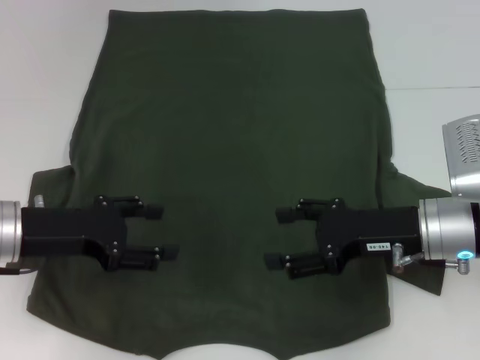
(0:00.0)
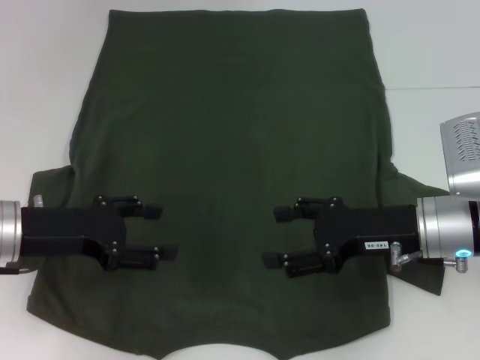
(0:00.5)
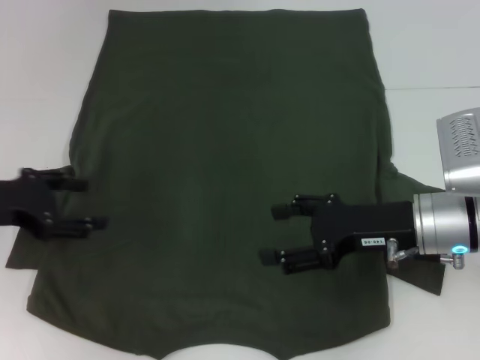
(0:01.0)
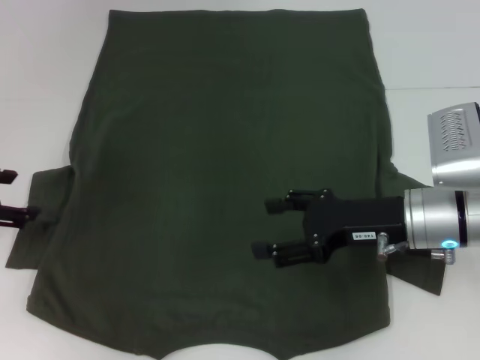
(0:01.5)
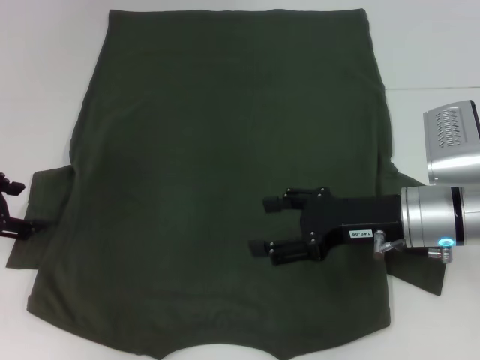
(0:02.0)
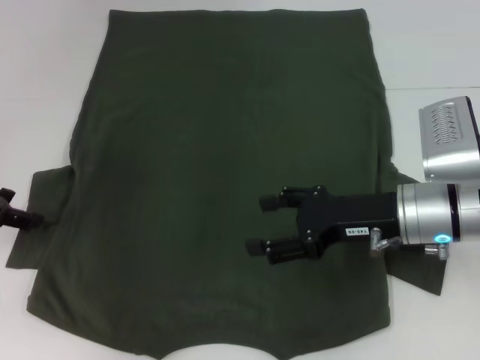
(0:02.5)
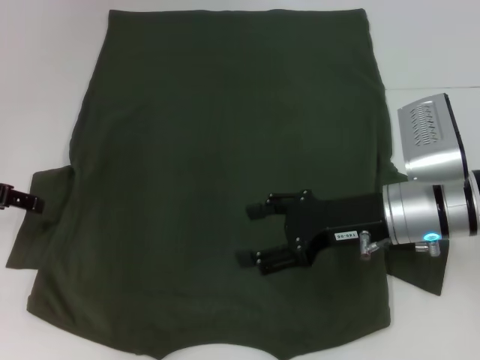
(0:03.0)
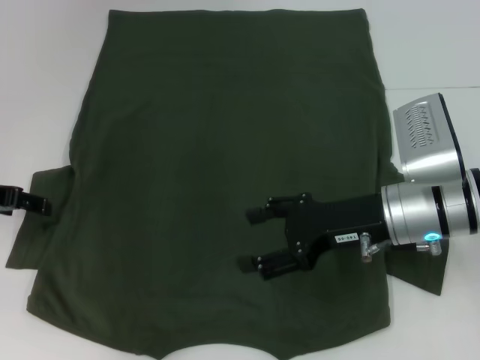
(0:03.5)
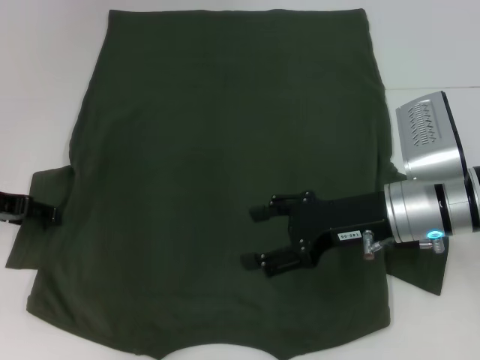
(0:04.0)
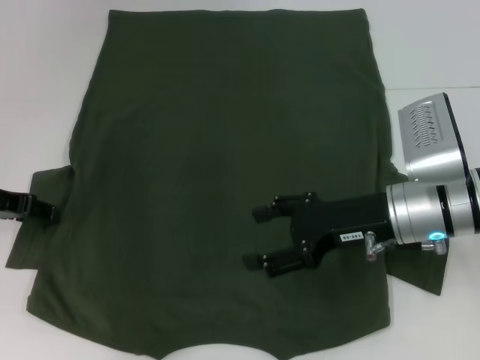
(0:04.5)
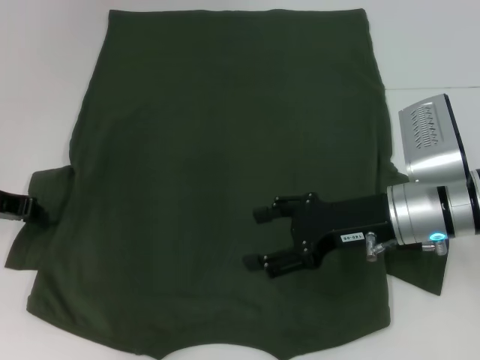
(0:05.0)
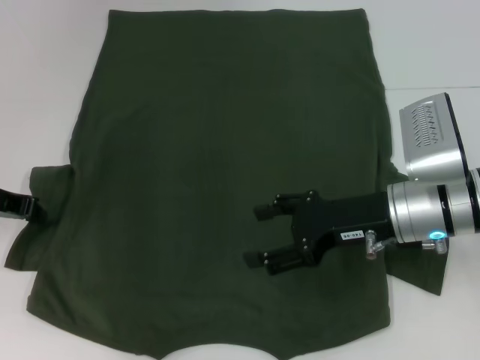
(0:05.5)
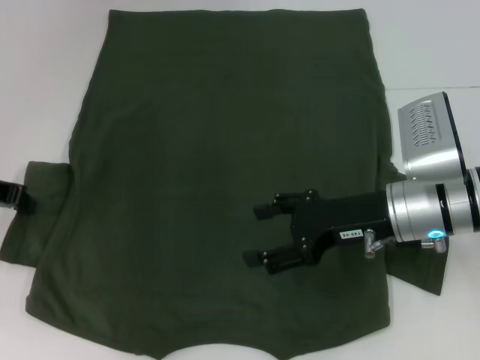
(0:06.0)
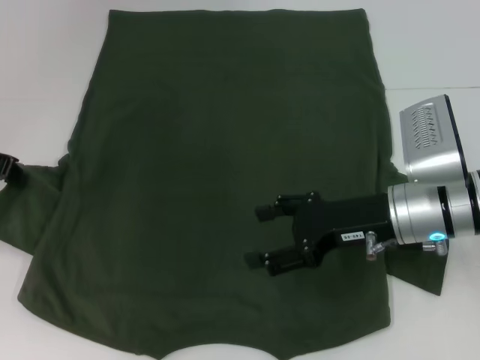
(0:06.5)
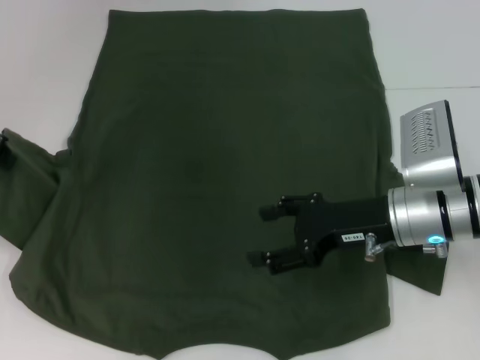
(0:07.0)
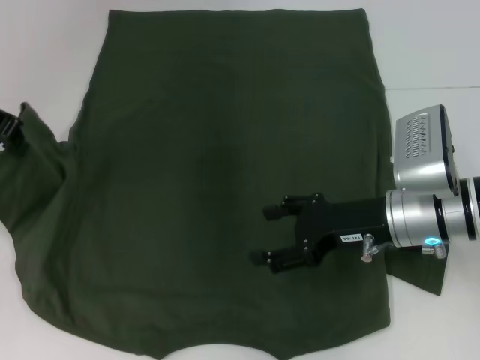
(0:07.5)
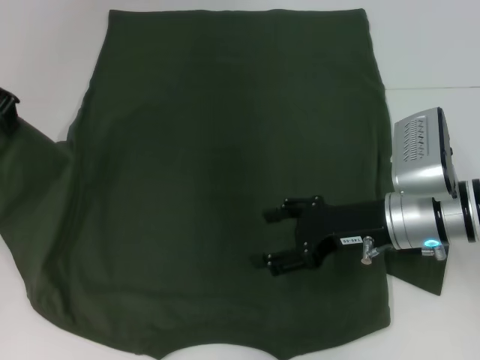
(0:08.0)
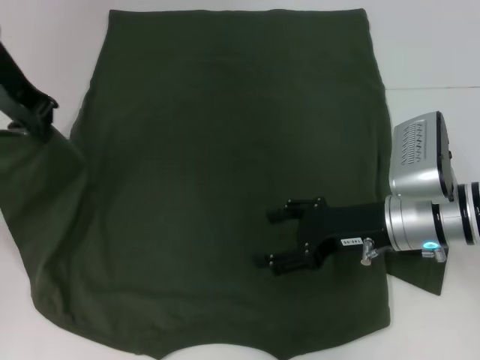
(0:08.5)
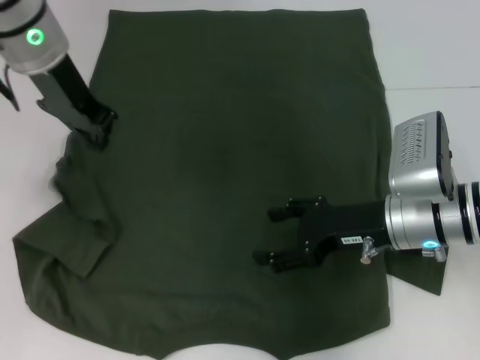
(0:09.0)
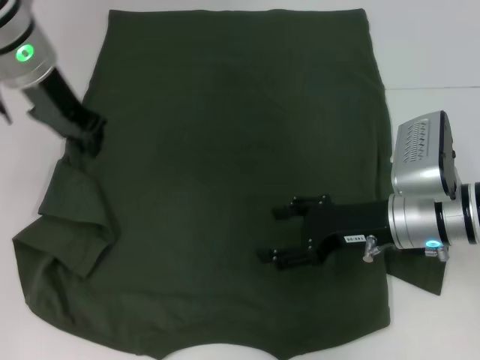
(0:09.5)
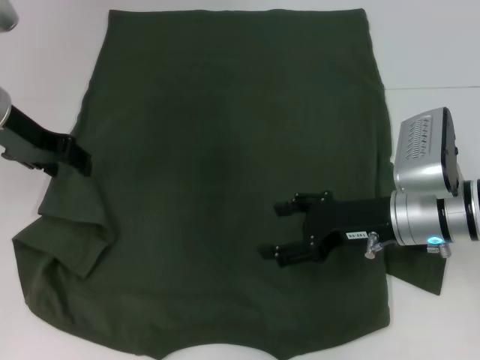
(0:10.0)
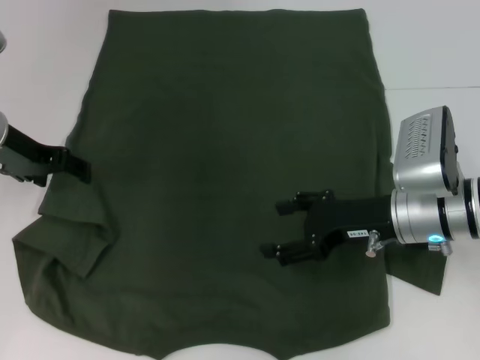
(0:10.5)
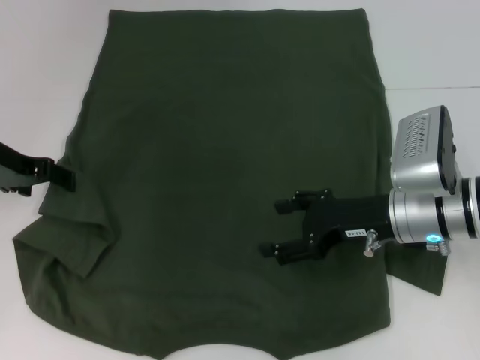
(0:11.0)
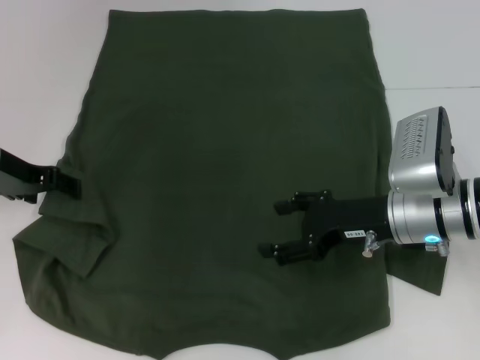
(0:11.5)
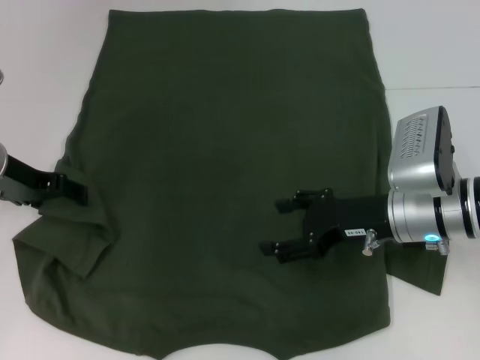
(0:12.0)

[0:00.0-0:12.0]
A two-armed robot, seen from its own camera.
0:00.0 to 0:02.0: The left gripper is displaced to the left by approximately 10 cm.
0:04.0 to 0:06.0: The left gripper closes.
0:06.0 to 0:08.0: The left gripper is displaced upward and to the right by approximately 15 cm.
0:08.0 to 0:10.0: The left gripper is displaced downward by approximately 10 cm, goes to the right and returns, roughly 10 cm each way, and opens.
0:10.0 to 0:12.0: The left gripper goes roughly 5 cm downward, and opens up.

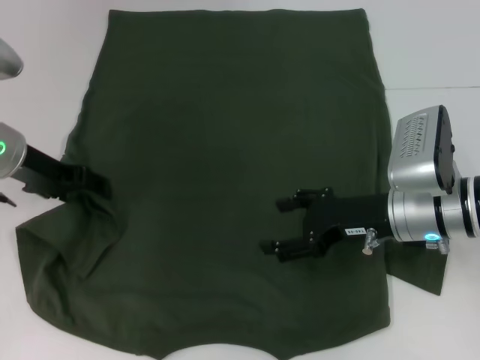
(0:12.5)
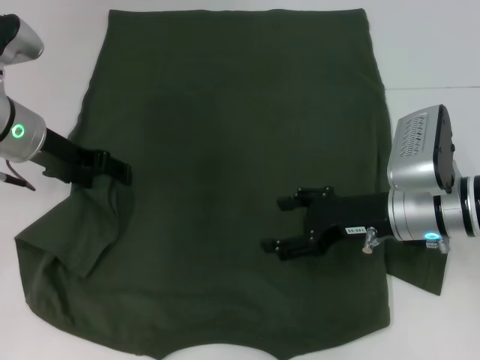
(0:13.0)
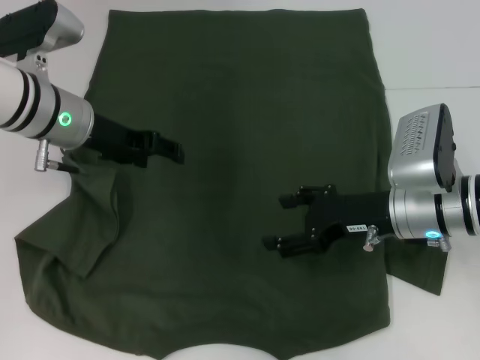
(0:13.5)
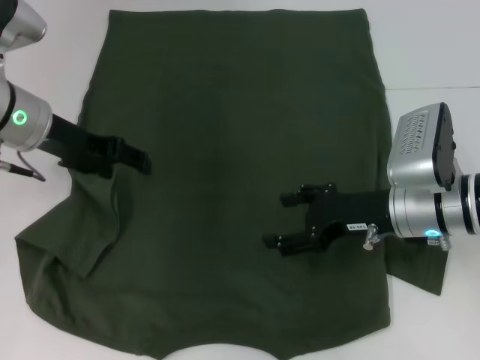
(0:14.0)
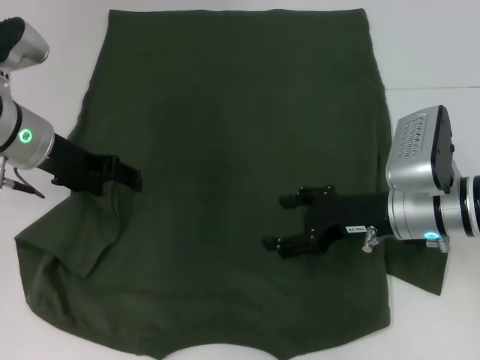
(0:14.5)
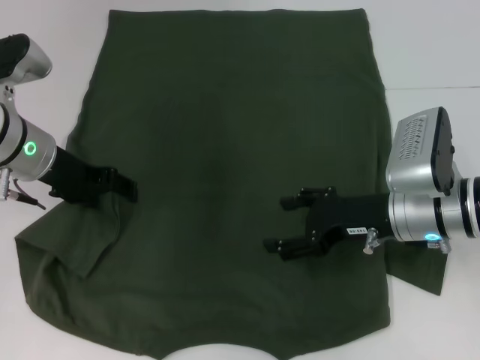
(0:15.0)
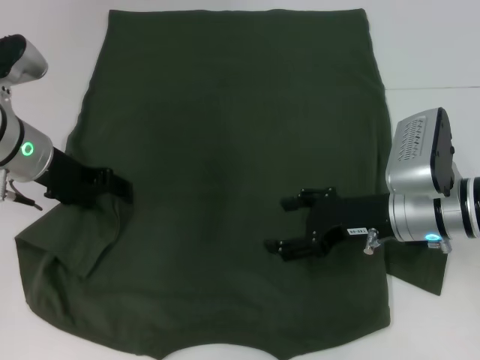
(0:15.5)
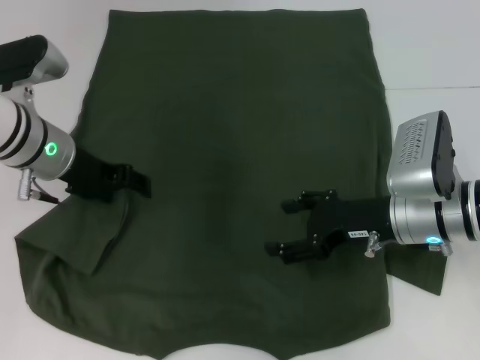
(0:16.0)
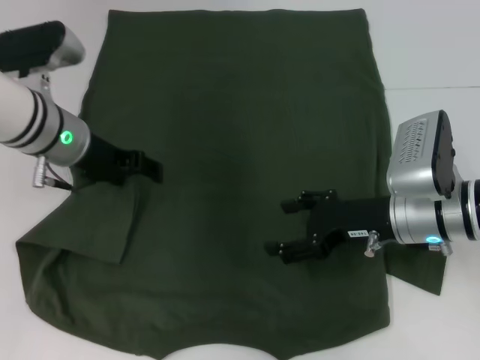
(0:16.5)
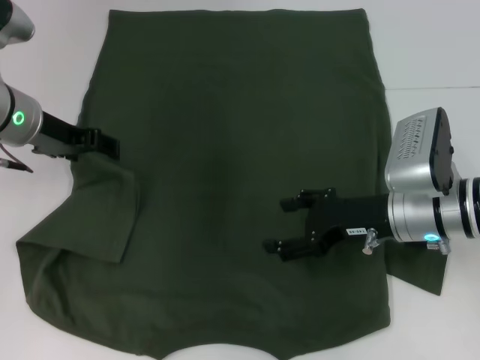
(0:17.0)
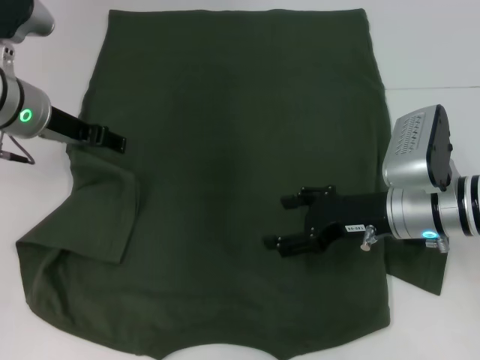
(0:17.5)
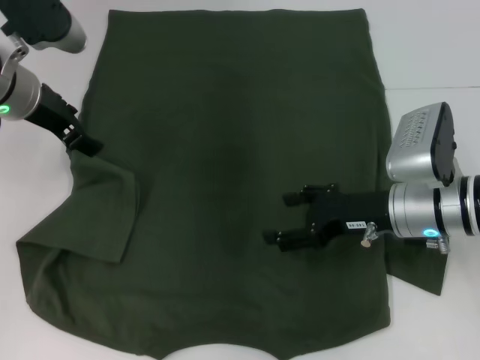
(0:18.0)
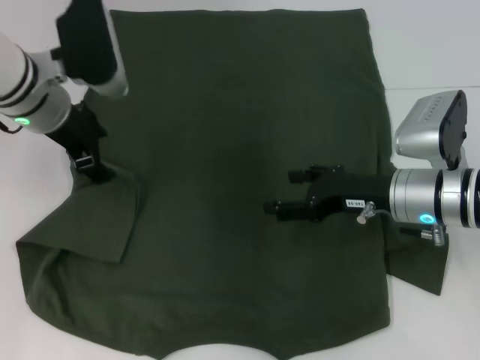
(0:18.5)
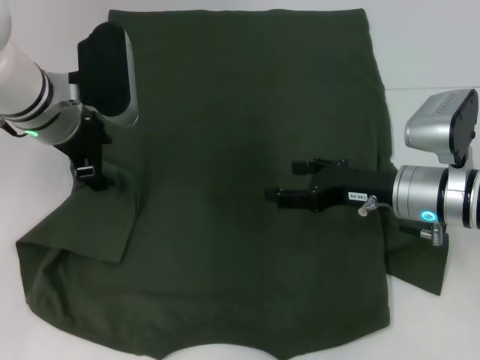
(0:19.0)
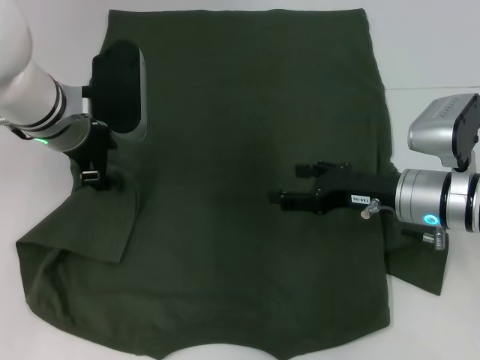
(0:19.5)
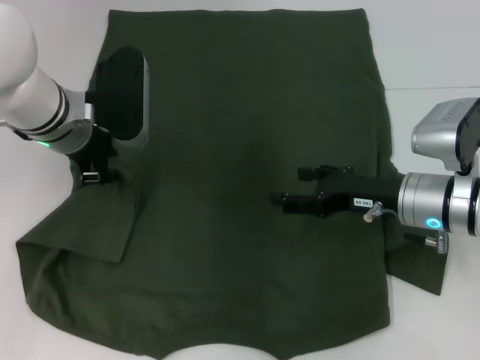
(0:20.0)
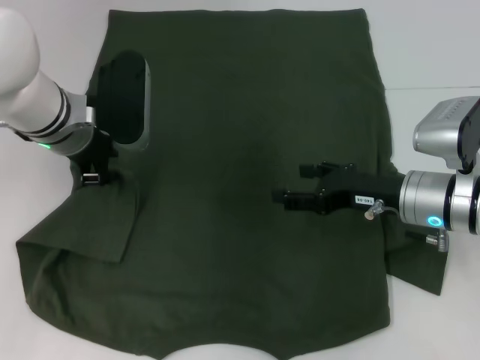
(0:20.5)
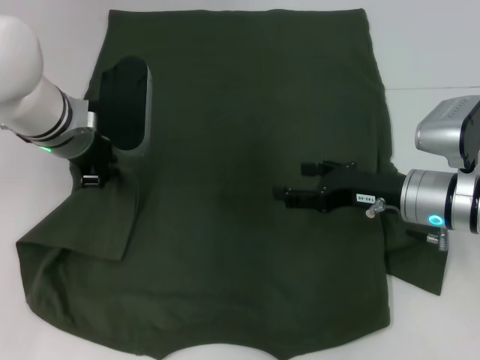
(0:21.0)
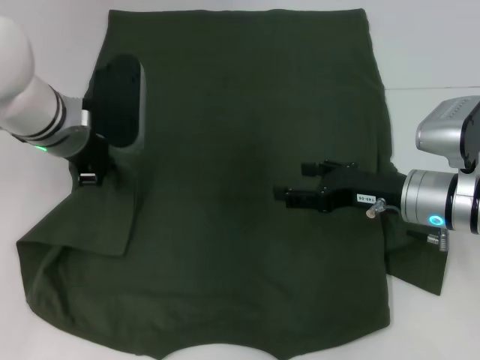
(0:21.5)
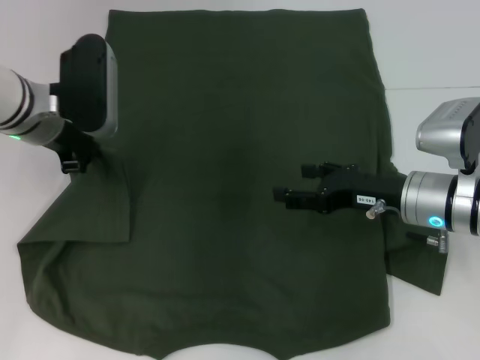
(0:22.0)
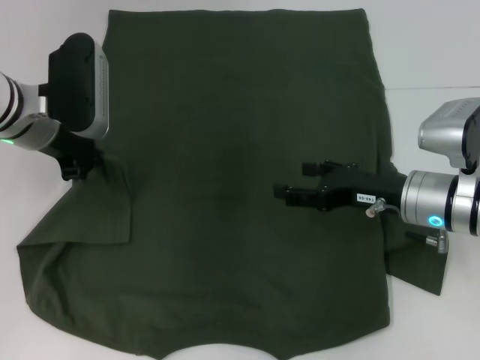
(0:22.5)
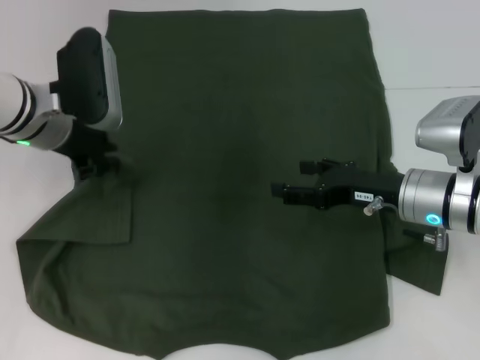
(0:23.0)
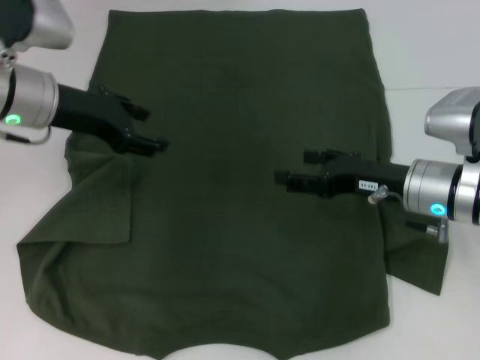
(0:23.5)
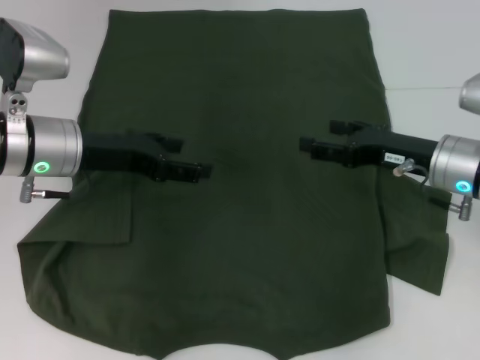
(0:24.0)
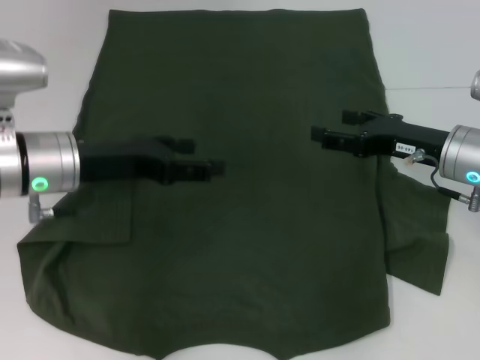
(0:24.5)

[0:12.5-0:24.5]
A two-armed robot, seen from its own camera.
Step, 0:12.5 to 0:23.0: Fold the bottom left sleeve with your left hand.
0:14.5 to 0:16.5: There are only small adjustments of the grippers.
0:18.5 to 0:20.5: The left gripper closes up.
0:20.5 to 0:22.5: The left gripper closes its fingers.
0:22.5 to 0:24.5: The right gripper moves some 5 cm. Meanwhile the left gripper travels backward by about 5 cm, and opens.

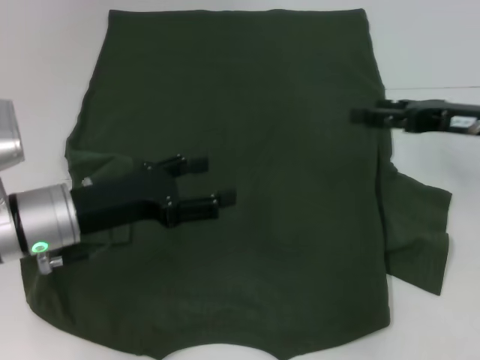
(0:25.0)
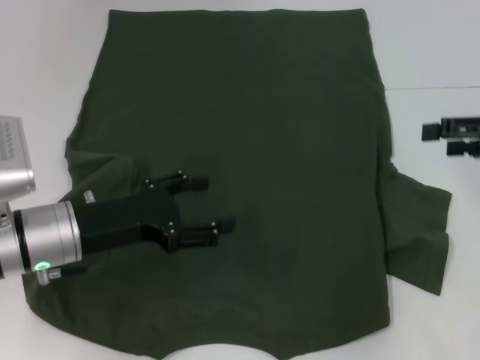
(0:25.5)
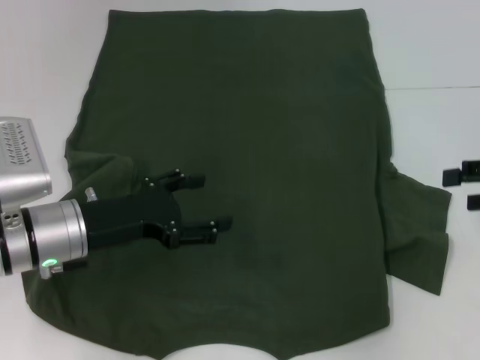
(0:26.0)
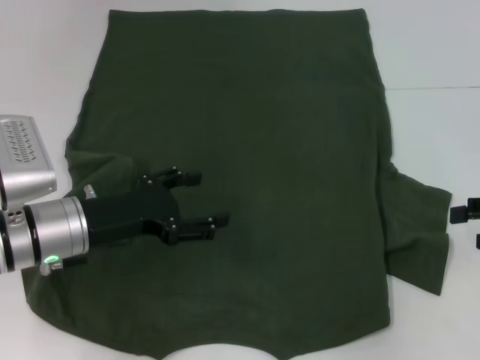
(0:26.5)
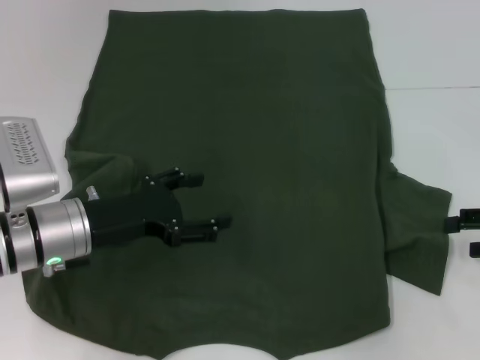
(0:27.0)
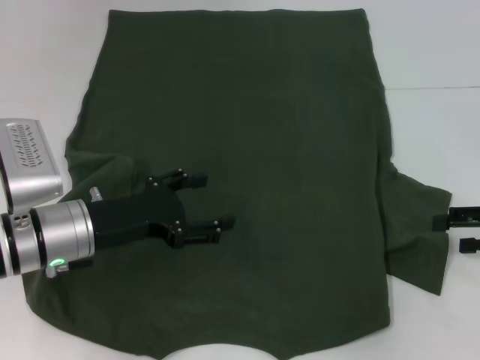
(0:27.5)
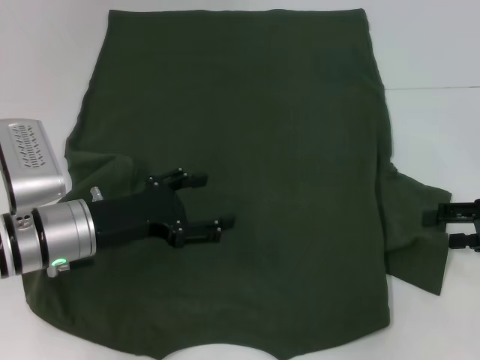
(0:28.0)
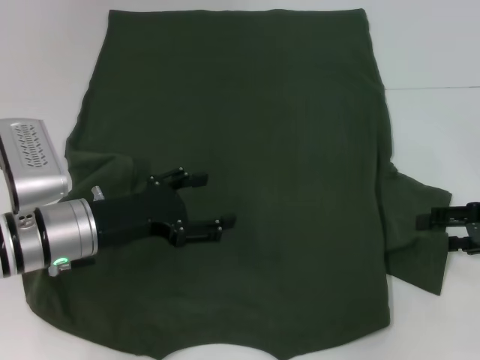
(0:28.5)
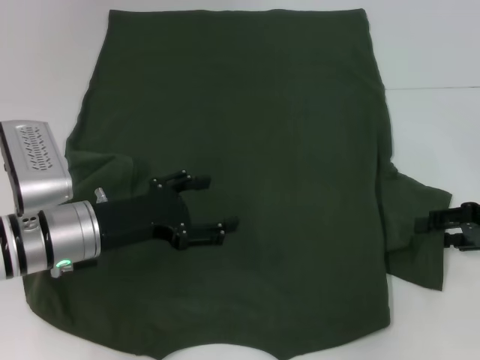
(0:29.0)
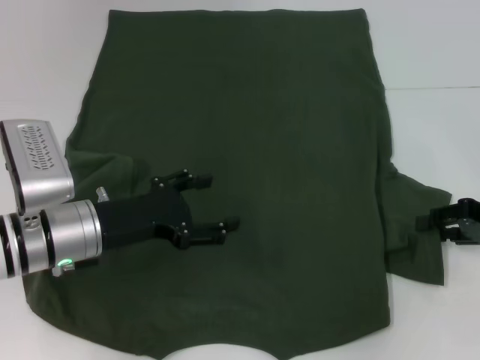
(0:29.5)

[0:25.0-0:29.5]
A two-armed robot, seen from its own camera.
0:25.0 to 0:27.0: The right gripper goes about 10 cm to the right and backward.
0:27.0 to 0:29.5: The grippers stay close to where they were, moving slightly.
